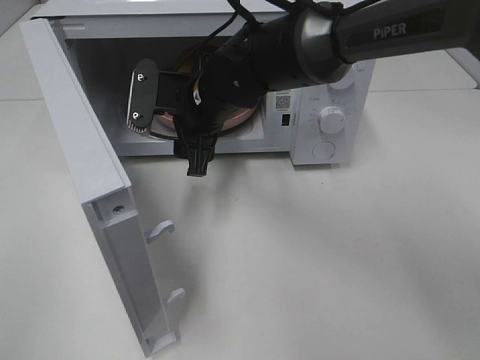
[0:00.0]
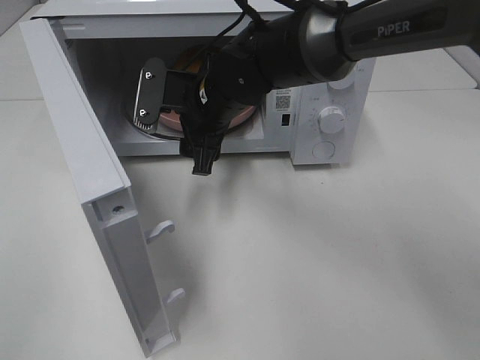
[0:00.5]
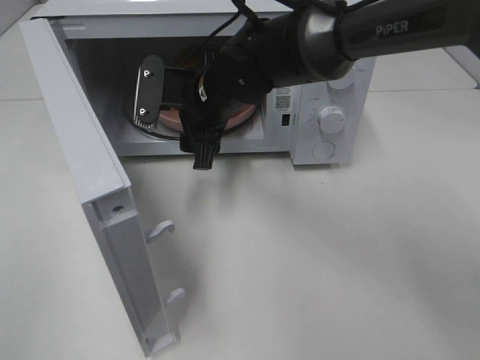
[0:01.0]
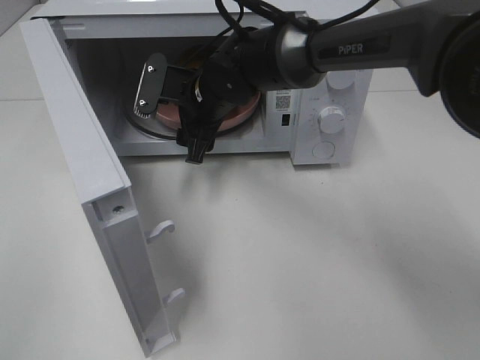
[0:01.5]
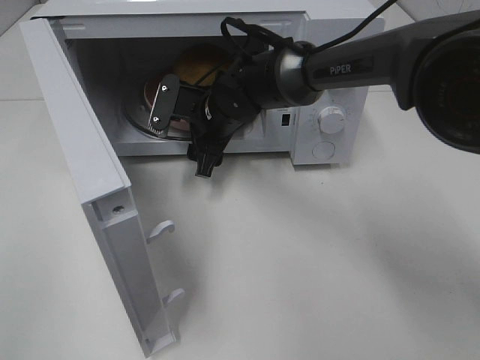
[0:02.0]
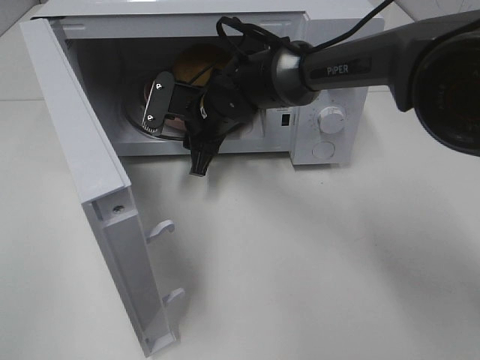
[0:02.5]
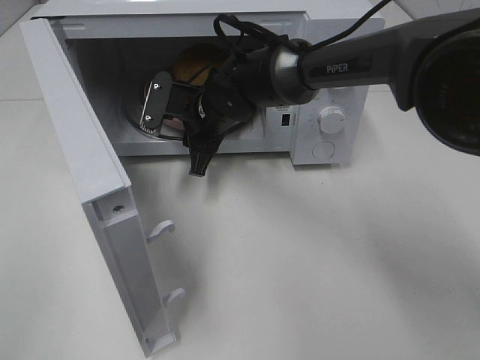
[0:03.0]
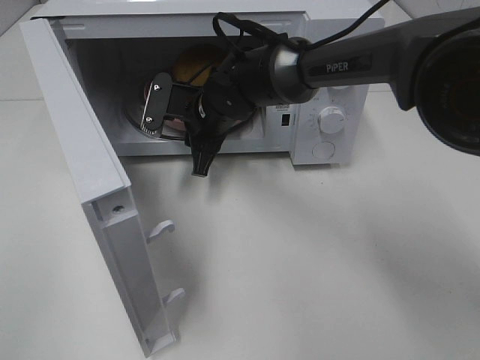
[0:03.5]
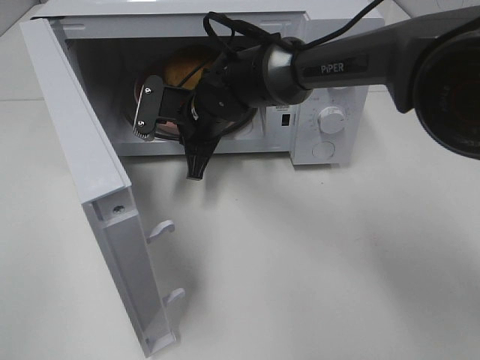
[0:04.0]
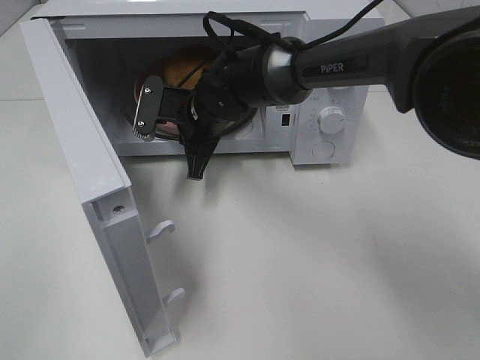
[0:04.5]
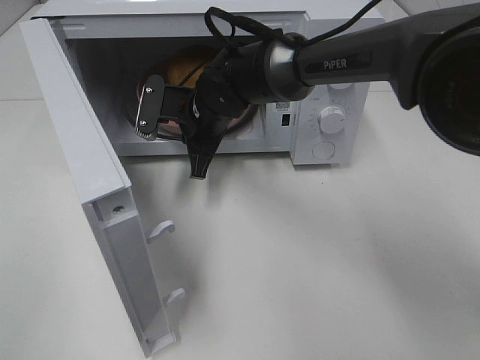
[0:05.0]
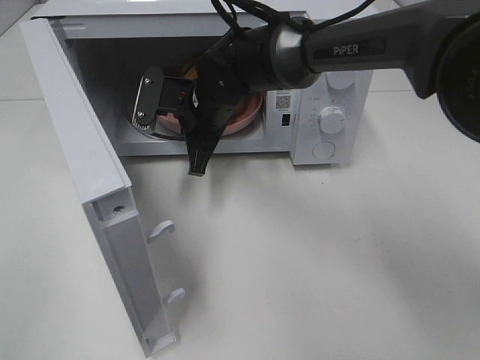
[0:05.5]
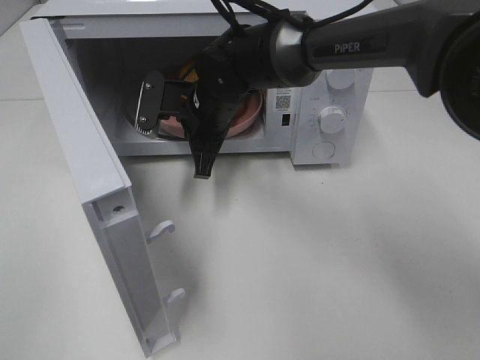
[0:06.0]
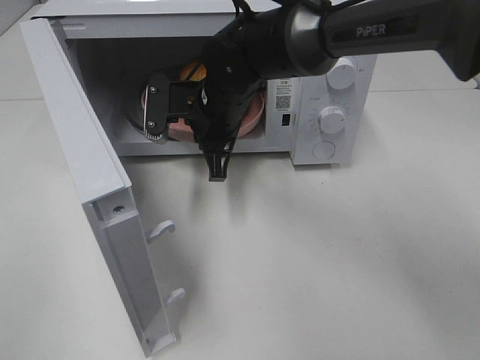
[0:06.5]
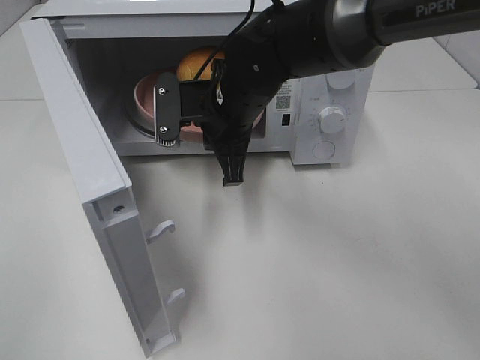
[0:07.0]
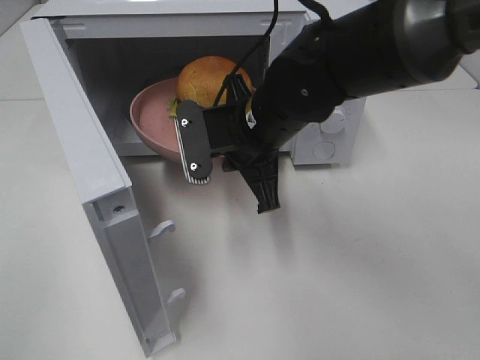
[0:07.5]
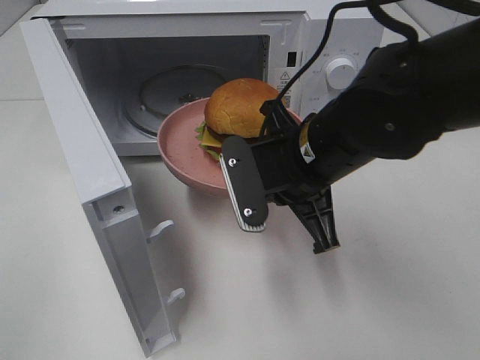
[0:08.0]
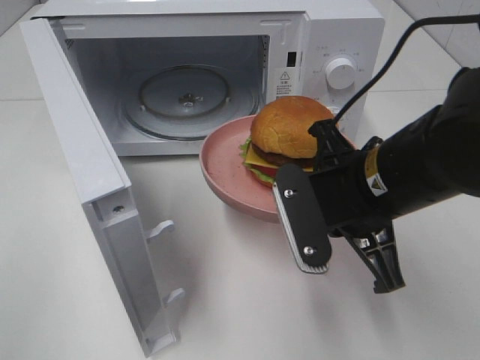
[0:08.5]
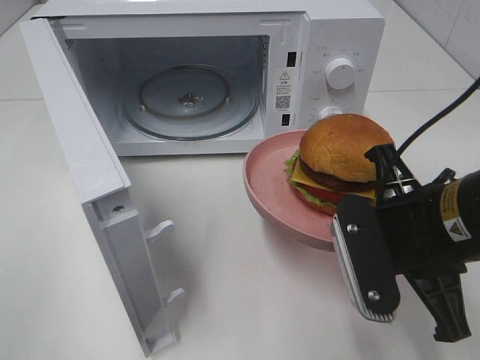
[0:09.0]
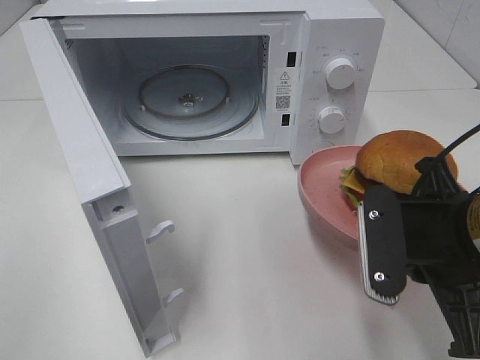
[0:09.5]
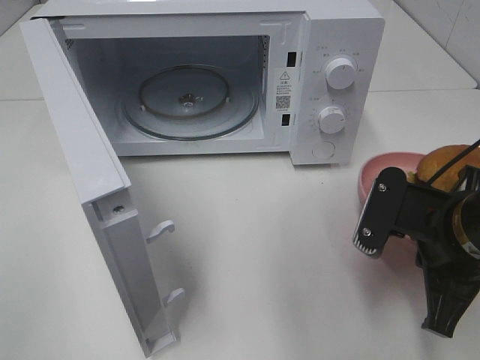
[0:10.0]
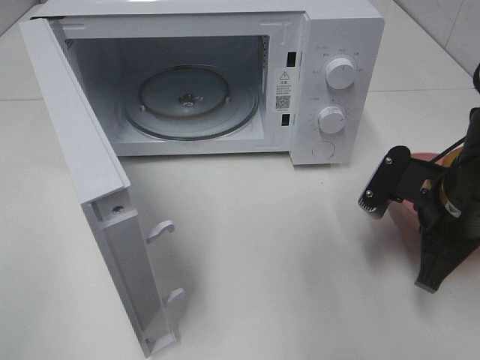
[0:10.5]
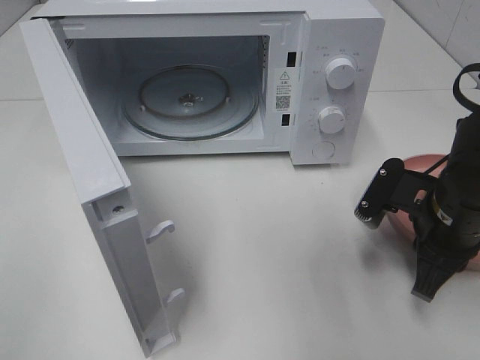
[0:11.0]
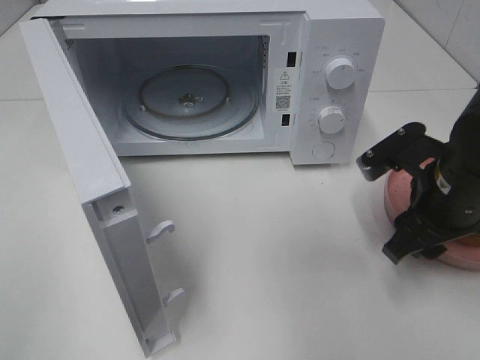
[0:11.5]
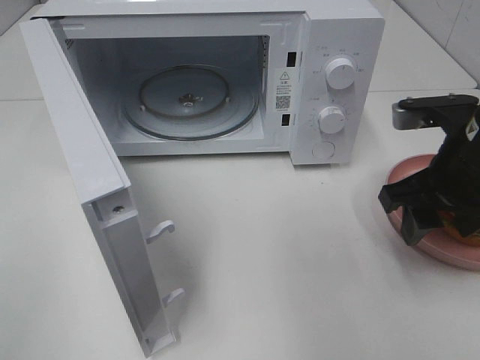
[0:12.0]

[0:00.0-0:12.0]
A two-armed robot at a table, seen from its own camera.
Task of the whole recording: Heat the burger.
Step, 0:00.0 to 0:05.5: Right hand: grab the plate with the hamburger.
Step, 0:06.0 to 0:11.0: Right hand: place the plate on the table.
0:00.0 to 0:02.0: The right gripper shifts approximately 5 cm downward.
0:02.0 to 0:04.0: The right gripper closes.
0:04.0 to 0:06.0: The grippers make only small movements.
0:06.0 to 0:08.0: The right gripper heads backward and to the right, covering about 20 cm.
0:08.0 to 0:10.0: The right gripper moves to the right and backward, roughly 15 cm.
0:10.0 to 0:12.0: The right gripper heads forward, covering approximately 5 cm, and opens.

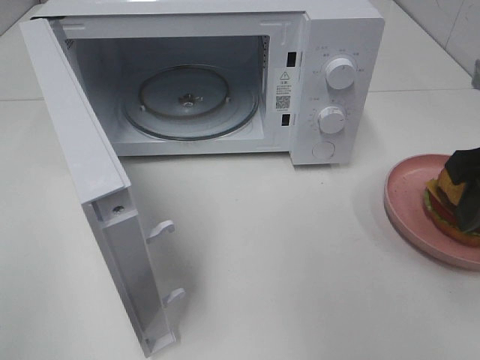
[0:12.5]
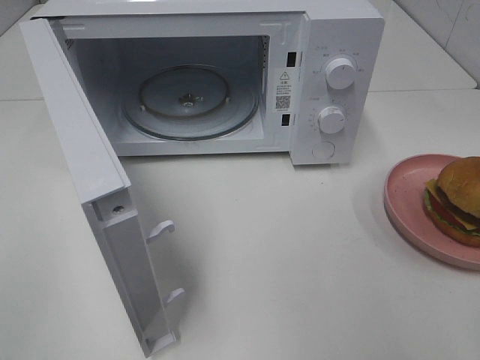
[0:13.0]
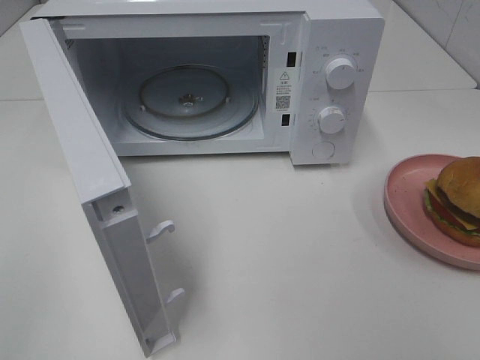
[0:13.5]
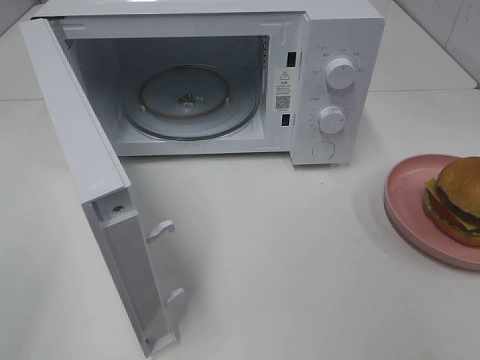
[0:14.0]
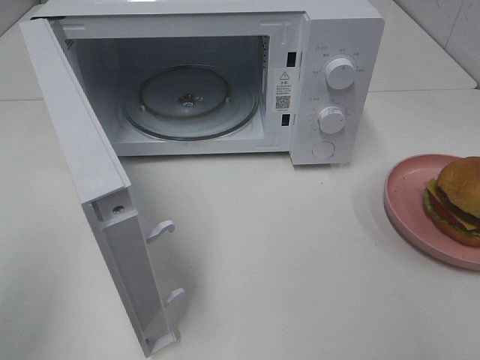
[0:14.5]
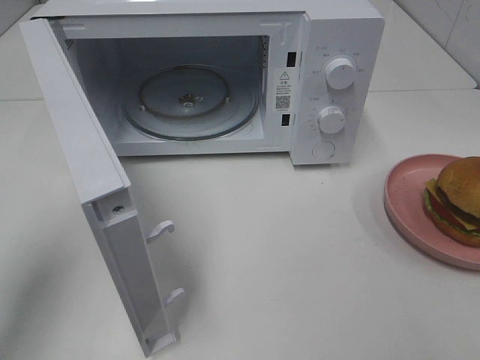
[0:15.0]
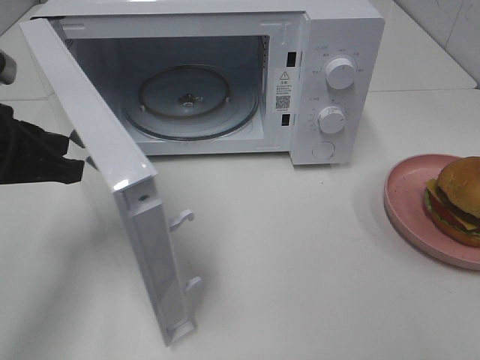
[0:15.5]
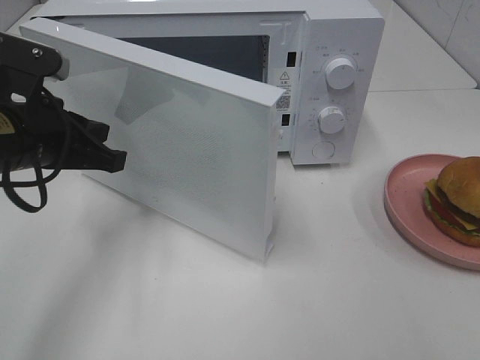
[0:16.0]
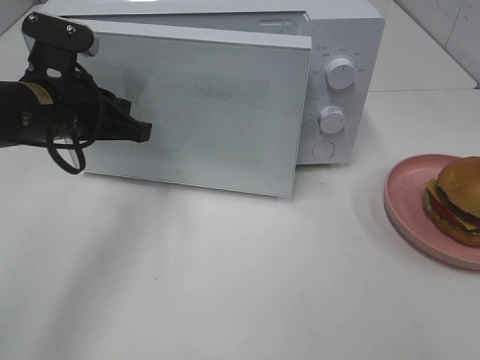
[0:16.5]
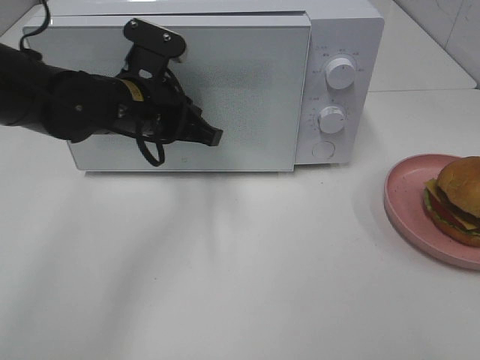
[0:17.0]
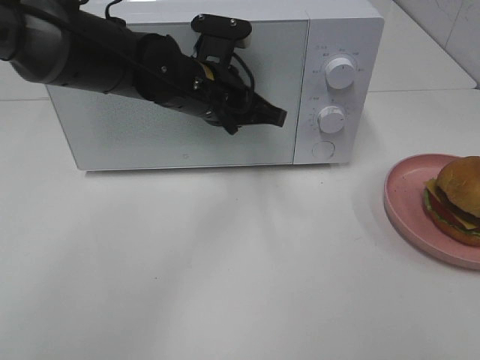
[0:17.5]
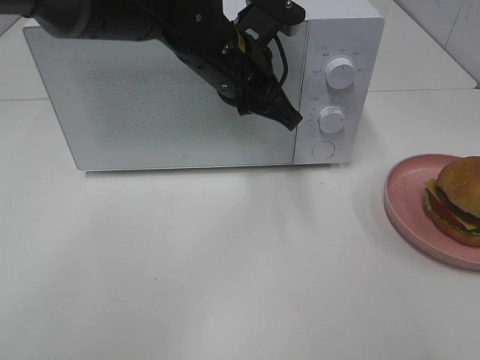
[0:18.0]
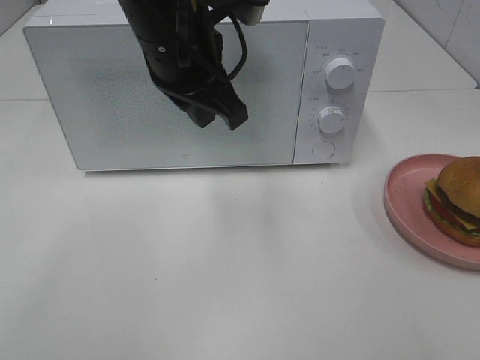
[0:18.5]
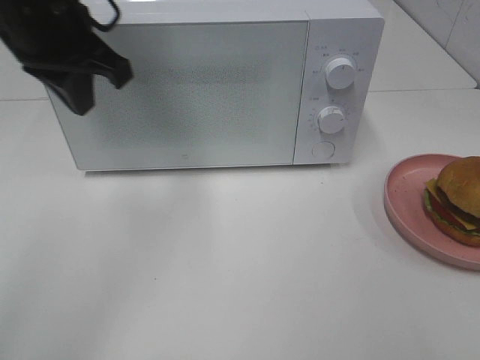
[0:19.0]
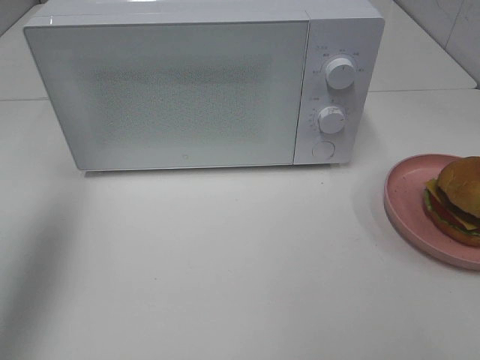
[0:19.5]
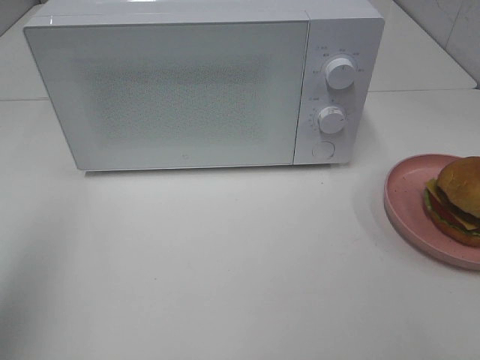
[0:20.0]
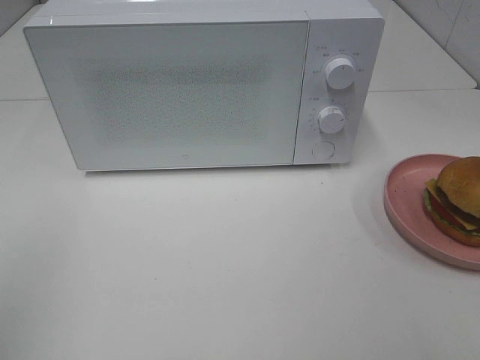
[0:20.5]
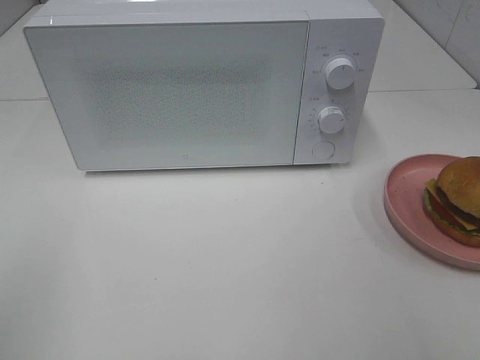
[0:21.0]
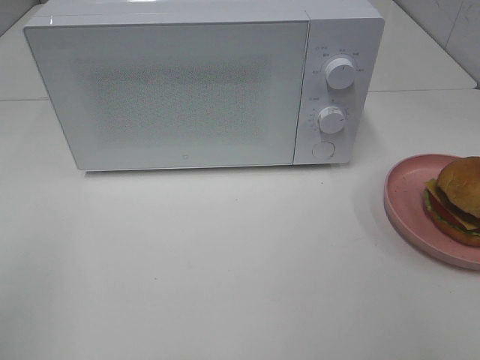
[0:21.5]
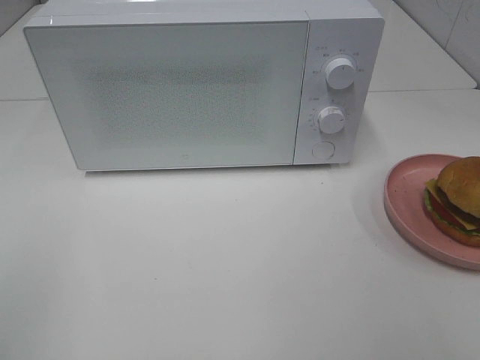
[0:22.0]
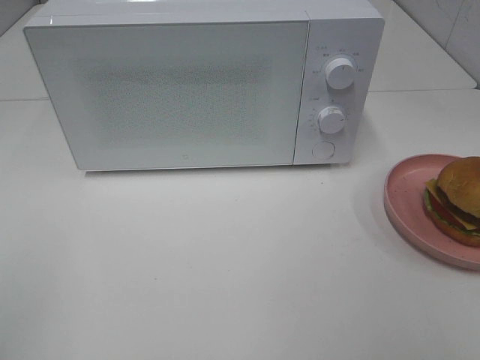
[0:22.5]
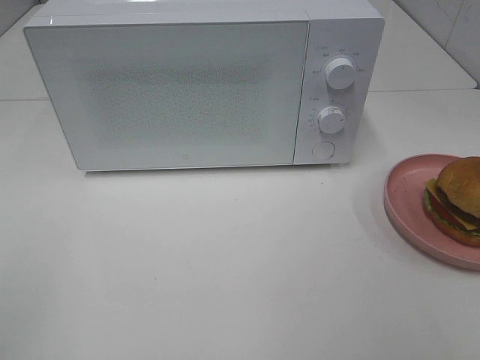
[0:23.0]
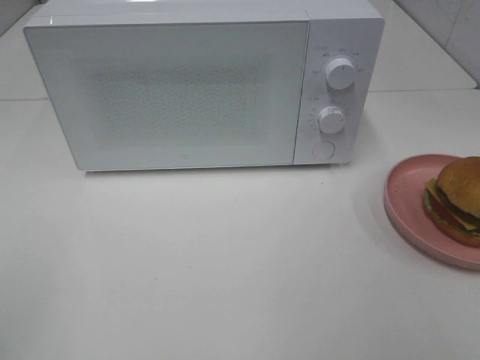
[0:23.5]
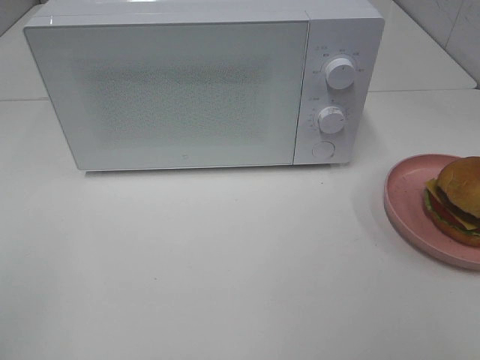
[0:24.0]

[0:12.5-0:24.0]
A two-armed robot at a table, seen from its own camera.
Task of the whole recording: Heat the burger.
Step, 0:12.5 to 0:17.5: Left hand: close the microwave door.
0:12.5 to 0:14.5: The right gripper travels backward by about 20 cm; the left gripper travels forward by roughly 10 cm.
0:14.5 to 0:16.5: The left gripper shifts some 30 cm forward, to the right and downward.
0:16.5 to 0:18.5: The left gripper heads to the right and upward, covering about 15 cm.
0:18.5 to 0:20.0: The left gripper goes some 30 cm to the left and backward.
0:20.0 to 0:22.0: The left gripper is displaced backward and downward by approximately 15 cm.

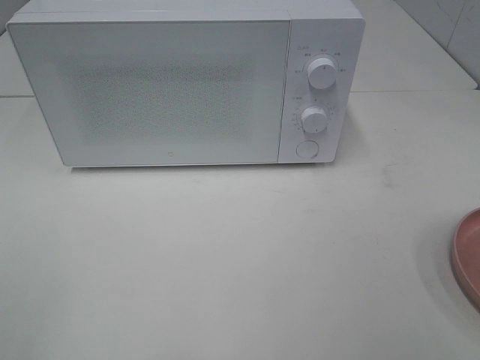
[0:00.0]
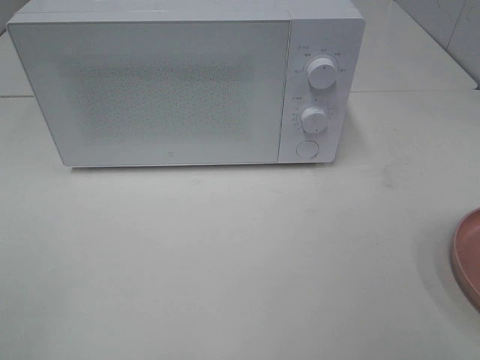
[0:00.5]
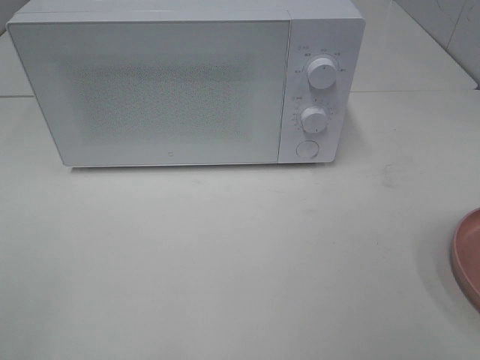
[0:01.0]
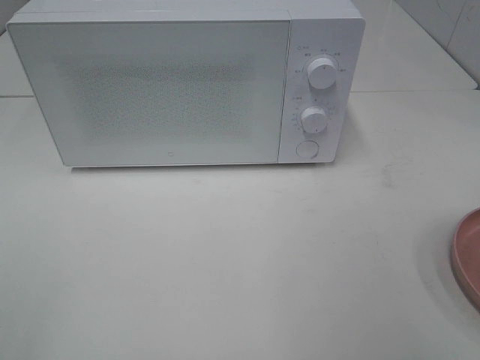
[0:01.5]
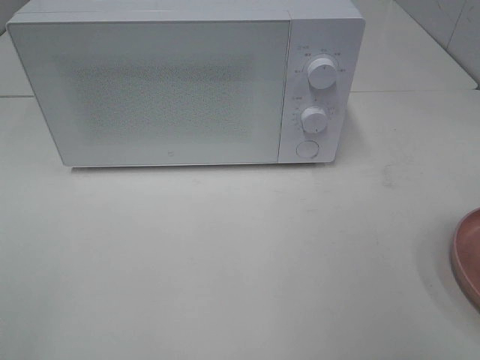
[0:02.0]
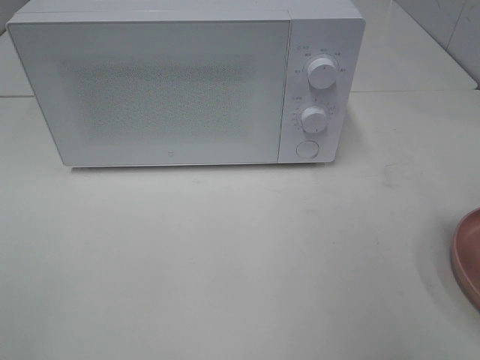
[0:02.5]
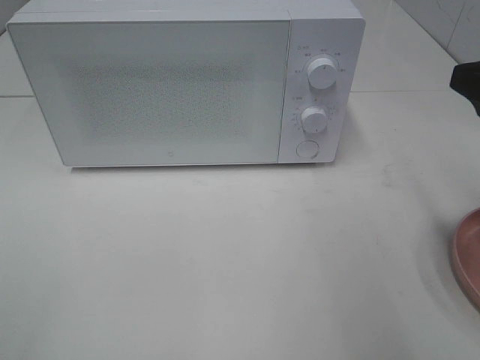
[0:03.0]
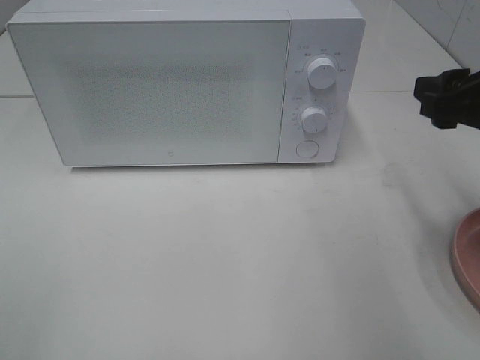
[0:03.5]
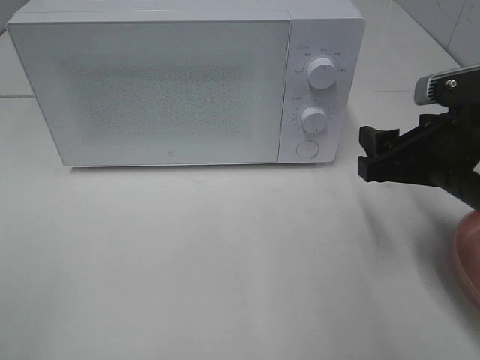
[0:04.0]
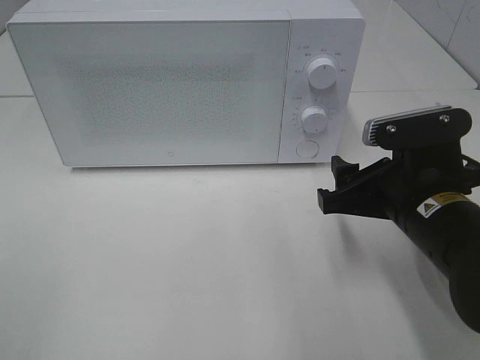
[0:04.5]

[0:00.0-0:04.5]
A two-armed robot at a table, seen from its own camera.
Task of the whole recording: Heat the burger.
0:02.0 to 0:04.5: The right gripper is displaced downward, forward and to the left by some 20 cm.
